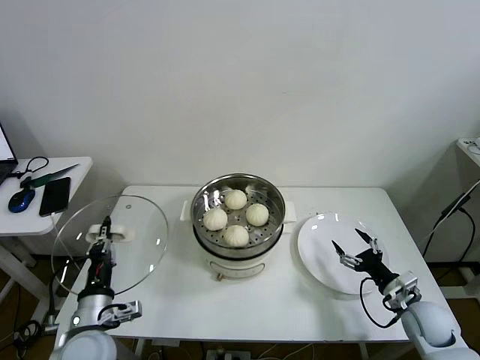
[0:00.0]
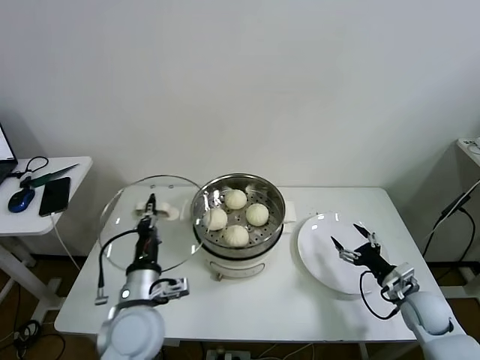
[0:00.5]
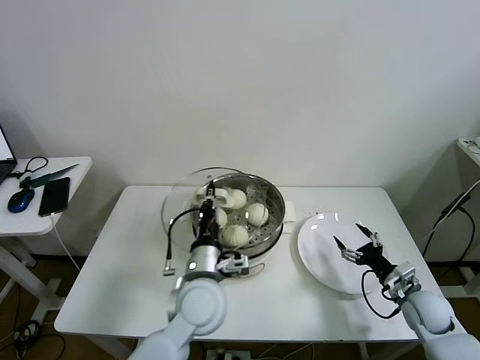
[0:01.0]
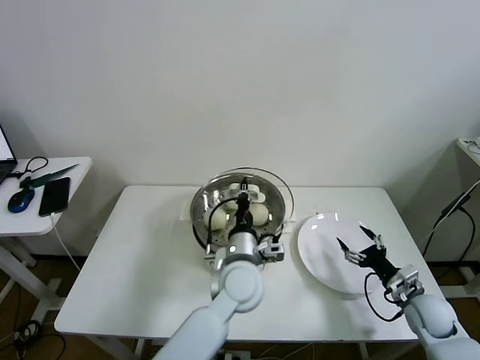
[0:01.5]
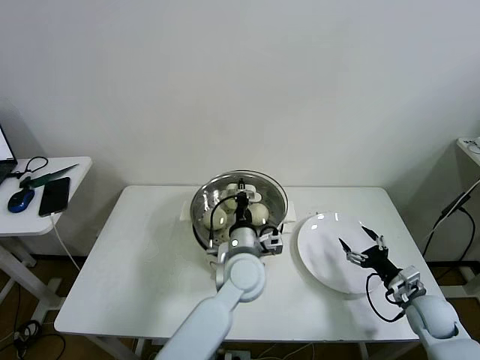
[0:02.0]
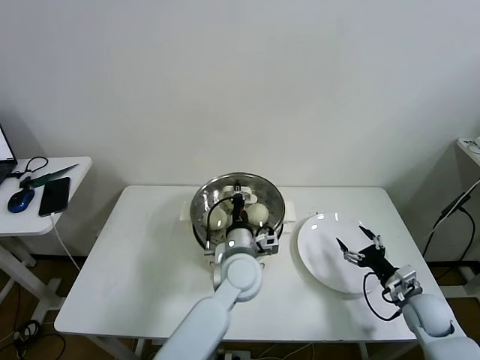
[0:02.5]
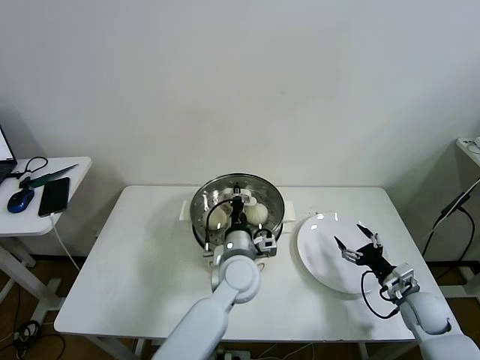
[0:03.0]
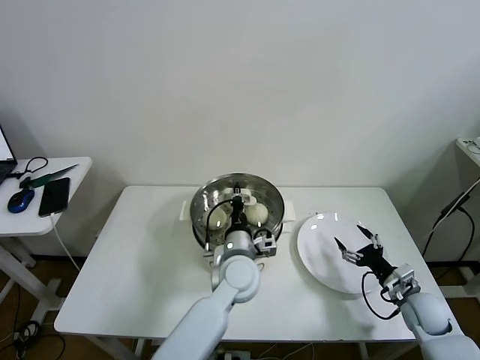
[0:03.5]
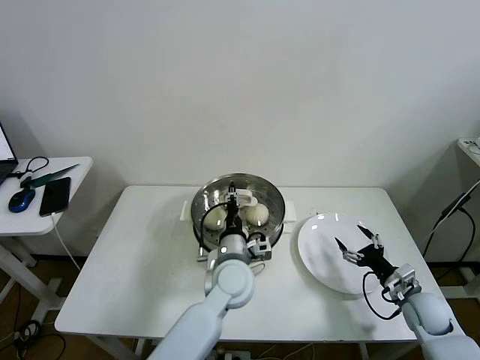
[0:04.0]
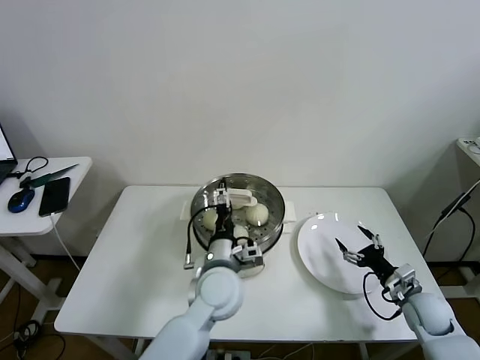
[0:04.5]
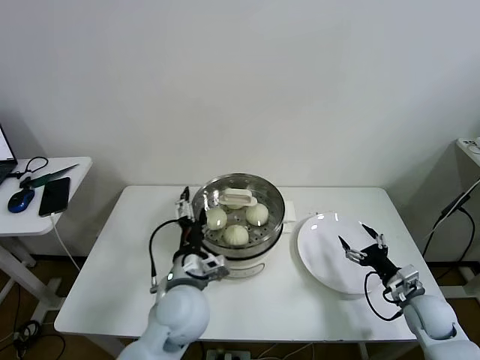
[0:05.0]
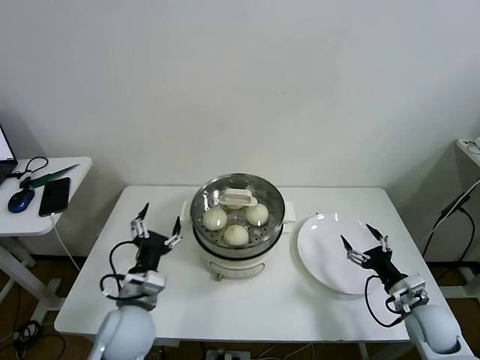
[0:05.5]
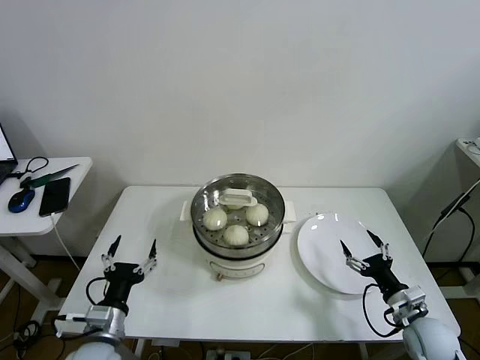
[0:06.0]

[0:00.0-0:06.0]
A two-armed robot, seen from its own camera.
Task of the whole recording: take steamed baozi put them in steamer then cover it.
Step, 0:00.0 to 0:04.0: Place the pot lid on the steamer with left gripper.
0:00.0 to 0:02.0: The left gripper goes about 35 cm to the right and forward.
0:02.0 to 0:04.0: The grippers move only a little.
0:04.0 to 0:06.0: The left gripper is displaced to the left and backward by roughly 30 cm, and opens up. The right gripper shifts some 5 cm backward.
